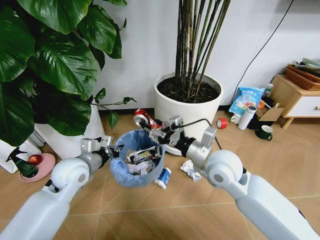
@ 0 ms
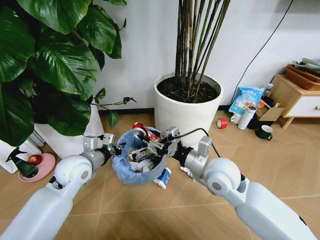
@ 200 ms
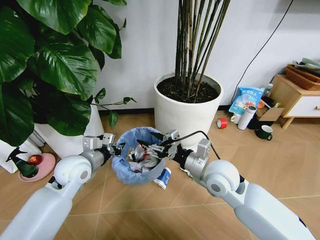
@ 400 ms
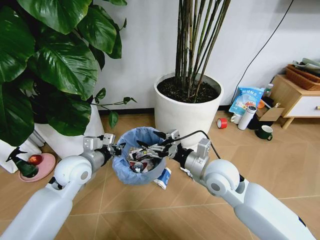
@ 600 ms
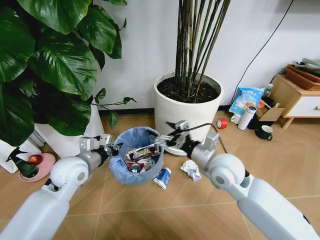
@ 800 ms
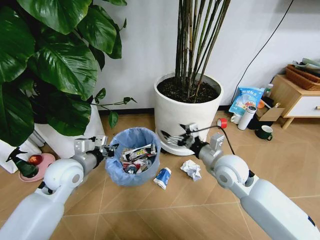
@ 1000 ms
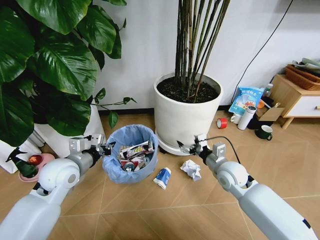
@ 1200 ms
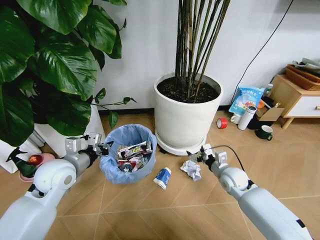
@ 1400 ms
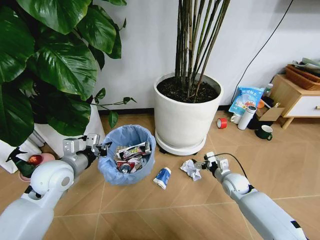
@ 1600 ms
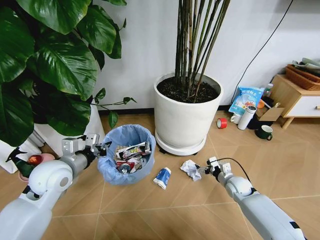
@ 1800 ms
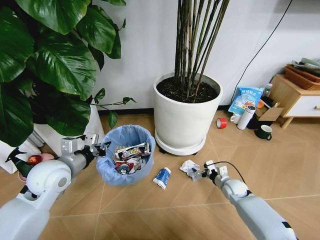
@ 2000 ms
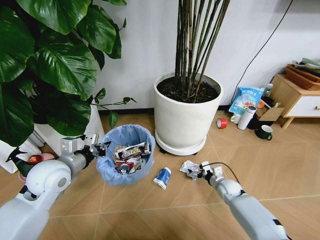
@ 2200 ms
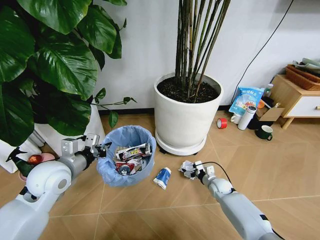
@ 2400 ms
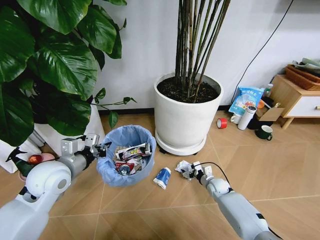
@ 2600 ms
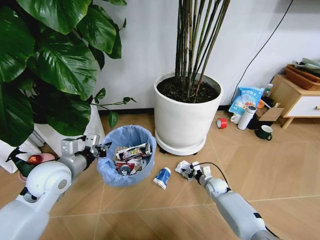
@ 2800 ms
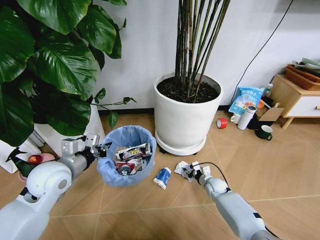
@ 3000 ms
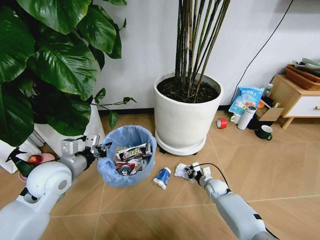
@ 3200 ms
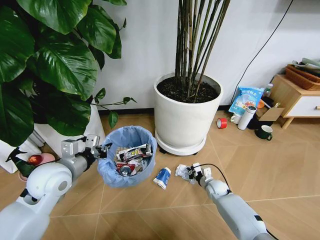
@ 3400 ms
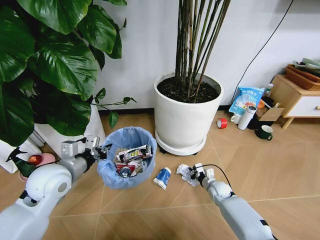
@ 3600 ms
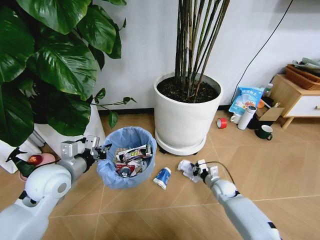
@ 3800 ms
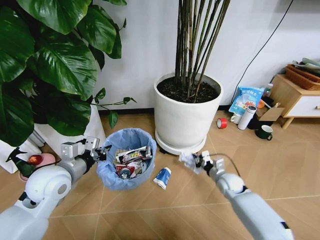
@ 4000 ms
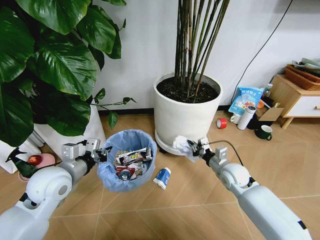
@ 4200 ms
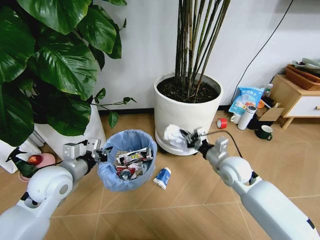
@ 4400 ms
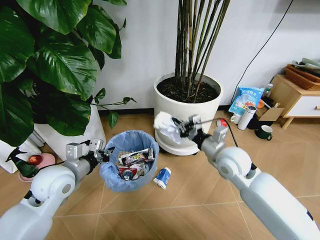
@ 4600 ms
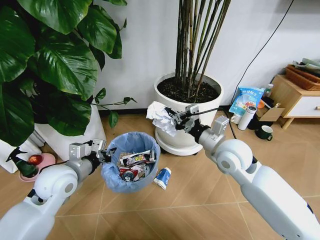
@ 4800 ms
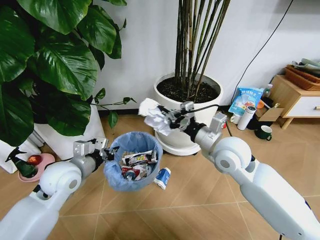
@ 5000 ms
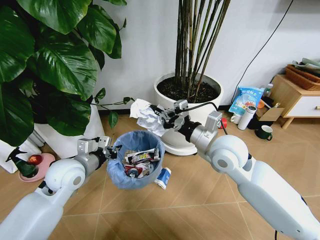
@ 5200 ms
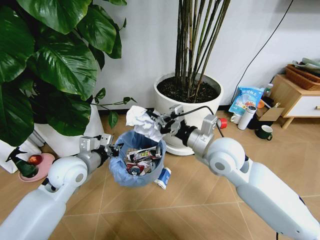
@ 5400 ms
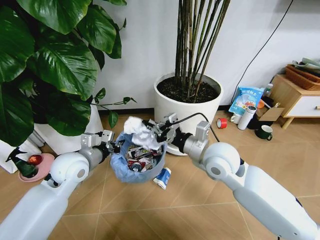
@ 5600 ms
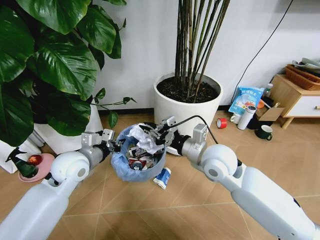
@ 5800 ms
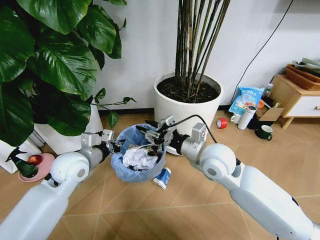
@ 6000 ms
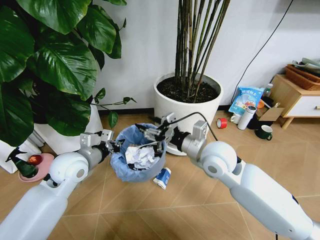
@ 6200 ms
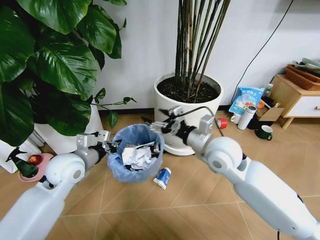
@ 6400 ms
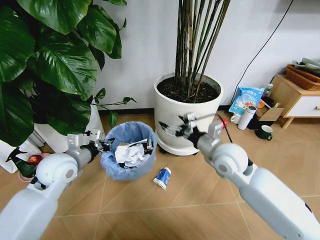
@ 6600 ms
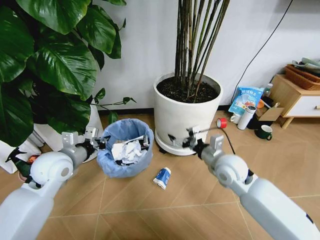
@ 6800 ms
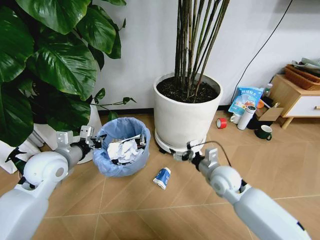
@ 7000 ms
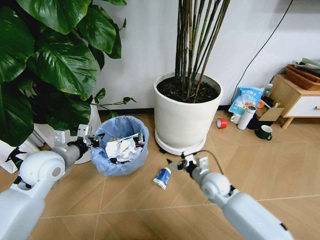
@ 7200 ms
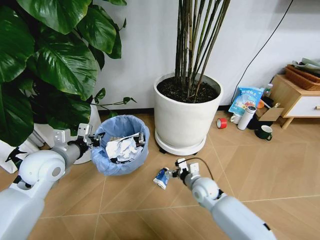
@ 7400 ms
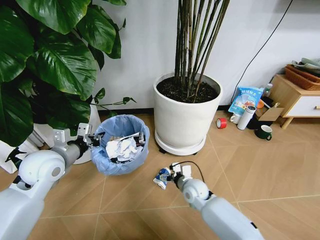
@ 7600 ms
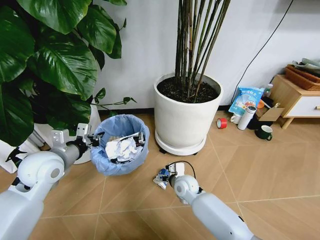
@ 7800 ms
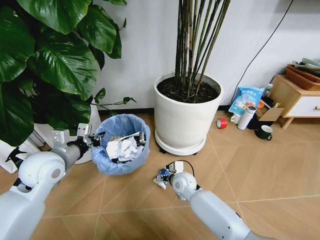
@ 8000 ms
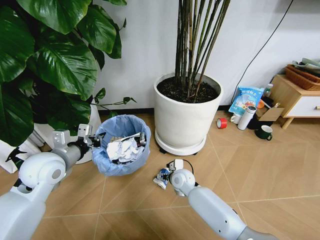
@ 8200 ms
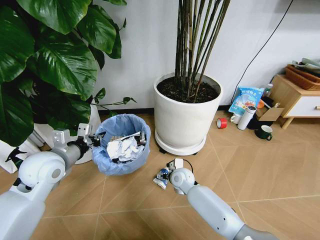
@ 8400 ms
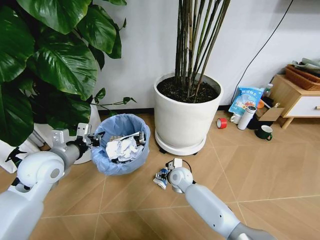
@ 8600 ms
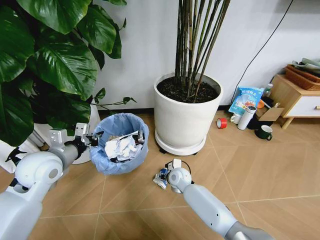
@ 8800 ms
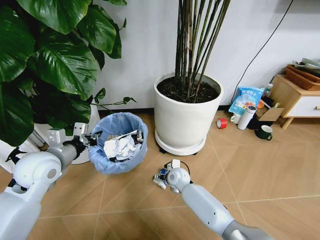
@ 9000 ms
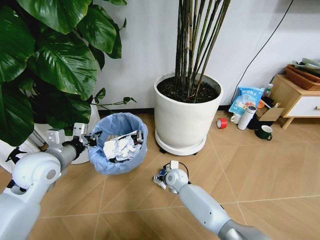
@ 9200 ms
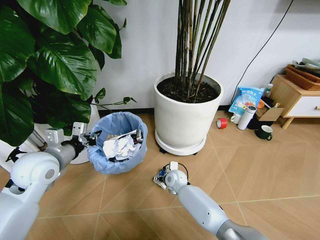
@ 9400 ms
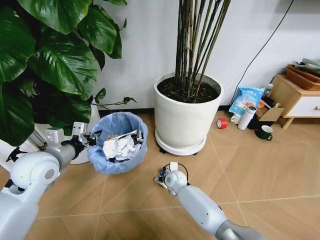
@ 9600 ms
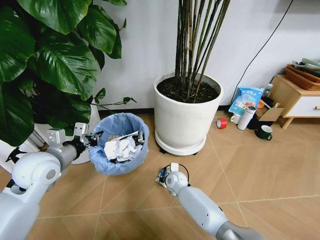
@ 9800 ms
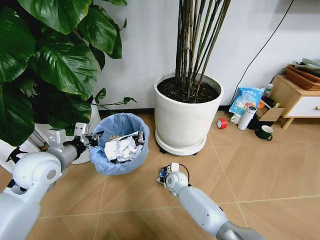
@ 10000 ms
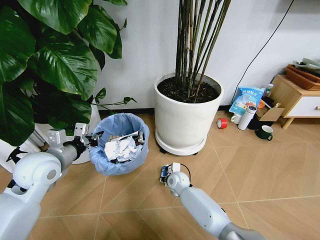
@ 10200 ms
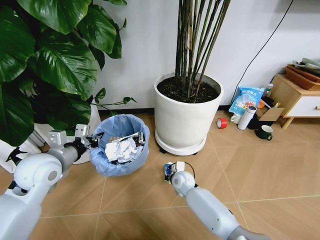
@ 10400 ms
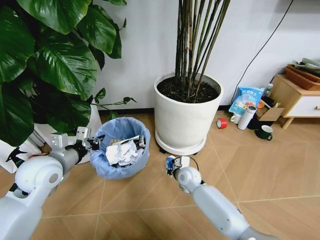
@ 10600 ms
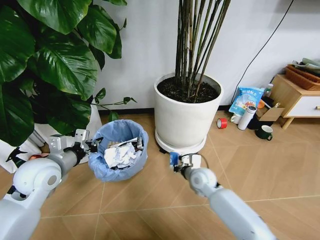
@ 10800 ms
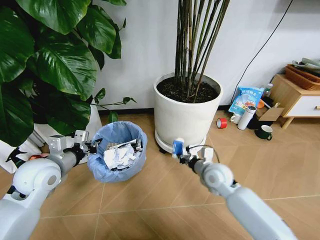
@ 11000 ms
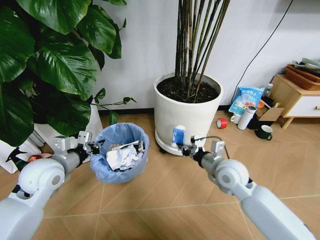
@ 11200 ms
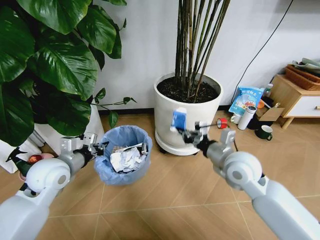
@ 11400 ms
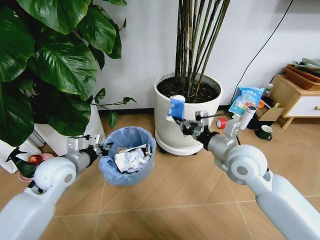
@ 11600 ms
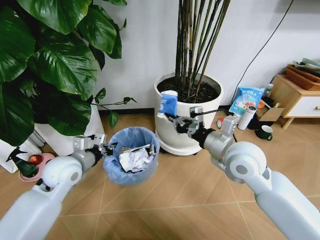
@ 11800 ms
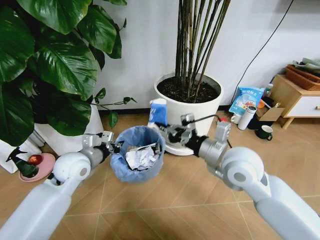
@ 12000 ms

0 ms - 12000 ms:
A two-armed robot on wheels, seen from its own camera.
Task of the whole recording: Pick up the trash bin and place the garbage on the floor into it.
0 ms - 1600 ms: The right gripper moves downward and to the right, some 30 cm, and opens up.
1600 ms - 3000 ms: The right gripper moves downward, approximately 10 cm, and closes its fingers.
3000 ms - 4400 ms: The right gripper shifts roughly 25 cm upward, and closes up.
4400 ms - 6000 ms: The right gripper moves upward and to the left, about 15 cm, and opens, while the left gripper ends up approximately 5 cm from where it was.
6000 ms - 7600 ms: The left gripper travels to the left by roughly 5 cm, while the right gripper heads downward, covering some 25 cm, and opens its fingers.
7600 ms - 9000 ms: The right gripper shifts approximately 5 cm forward.
9000 ms - 10400 ms: The right gripper closes up.
10400 ms - 12000 ms: The left gripper shifts roughly 5 cm to the right; the right gripper travels upward by approximately 30 cm.

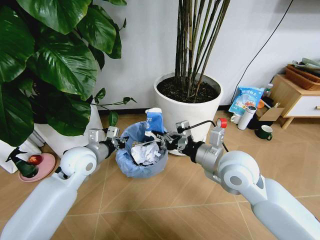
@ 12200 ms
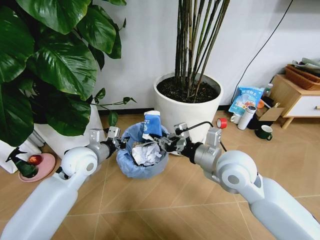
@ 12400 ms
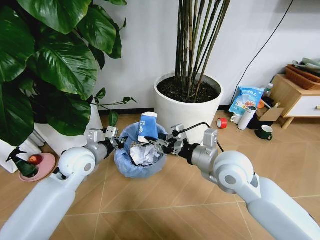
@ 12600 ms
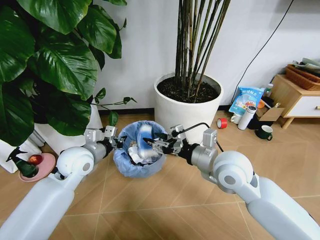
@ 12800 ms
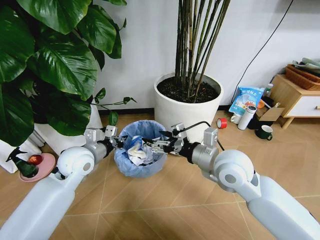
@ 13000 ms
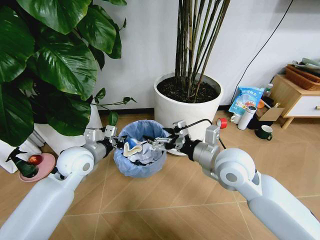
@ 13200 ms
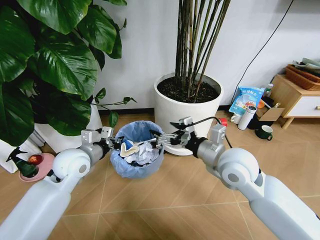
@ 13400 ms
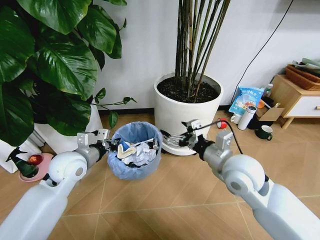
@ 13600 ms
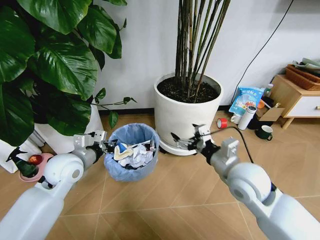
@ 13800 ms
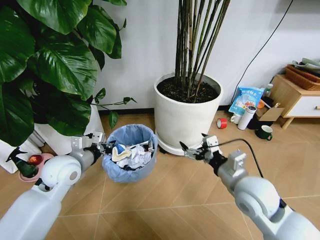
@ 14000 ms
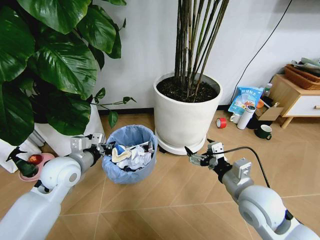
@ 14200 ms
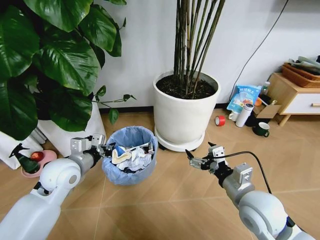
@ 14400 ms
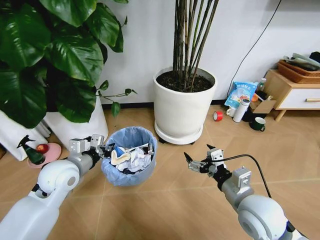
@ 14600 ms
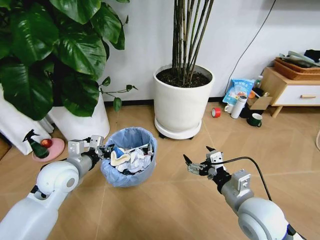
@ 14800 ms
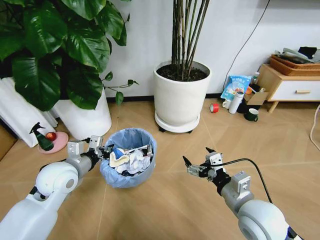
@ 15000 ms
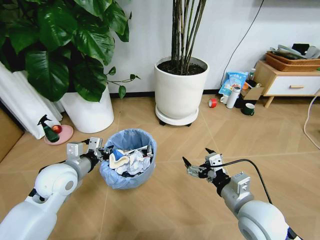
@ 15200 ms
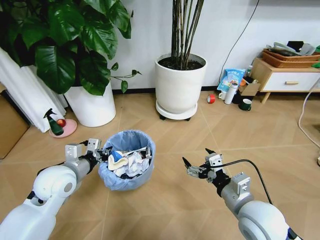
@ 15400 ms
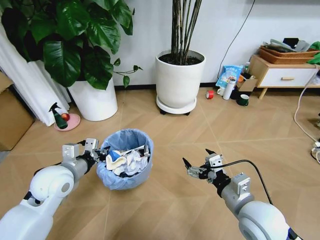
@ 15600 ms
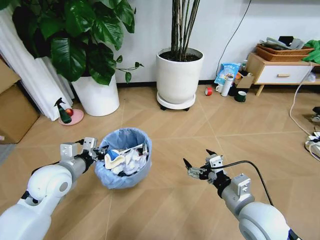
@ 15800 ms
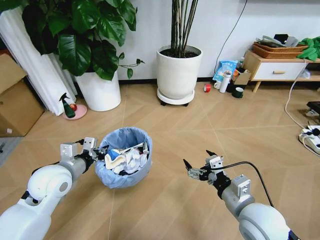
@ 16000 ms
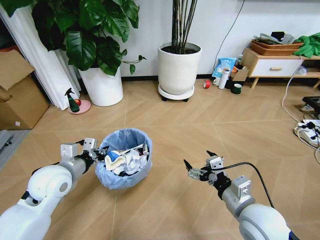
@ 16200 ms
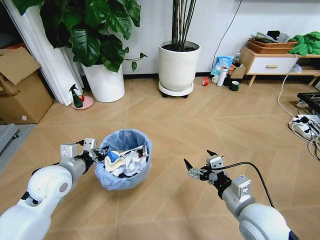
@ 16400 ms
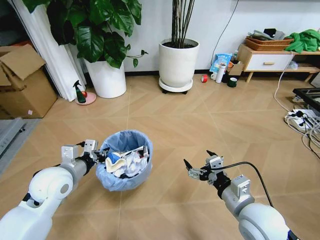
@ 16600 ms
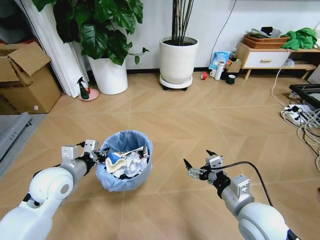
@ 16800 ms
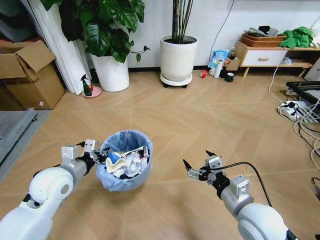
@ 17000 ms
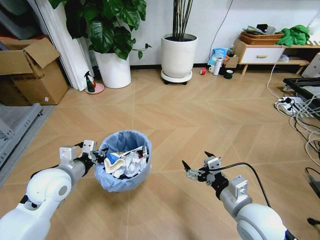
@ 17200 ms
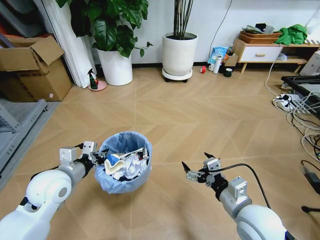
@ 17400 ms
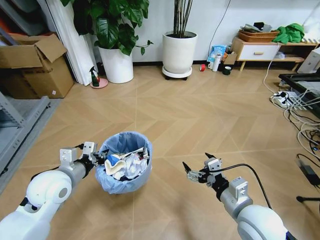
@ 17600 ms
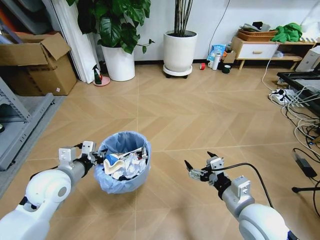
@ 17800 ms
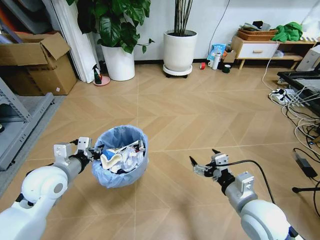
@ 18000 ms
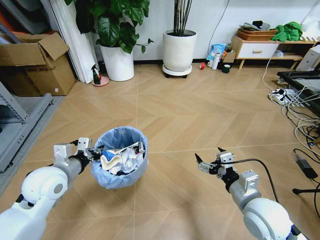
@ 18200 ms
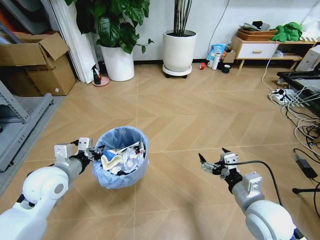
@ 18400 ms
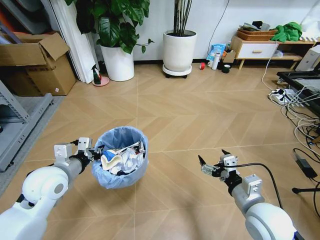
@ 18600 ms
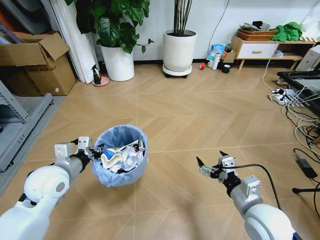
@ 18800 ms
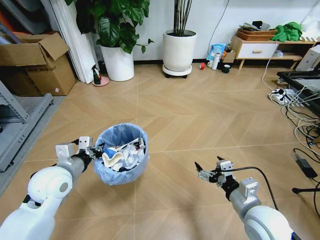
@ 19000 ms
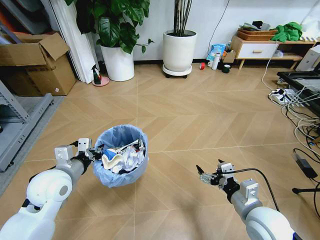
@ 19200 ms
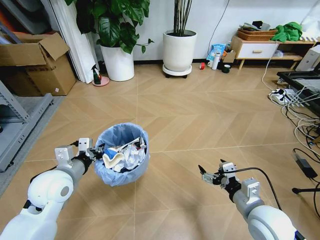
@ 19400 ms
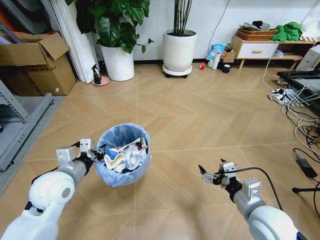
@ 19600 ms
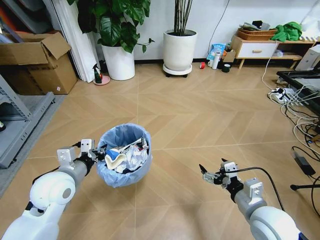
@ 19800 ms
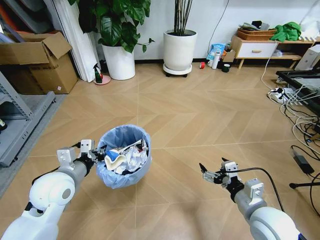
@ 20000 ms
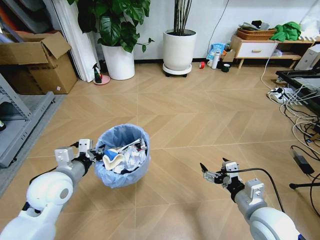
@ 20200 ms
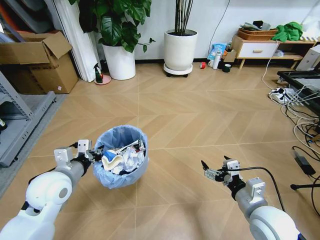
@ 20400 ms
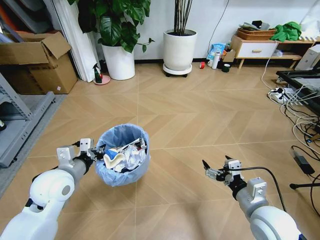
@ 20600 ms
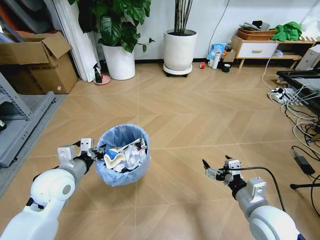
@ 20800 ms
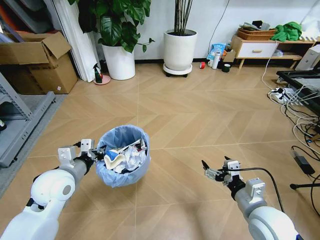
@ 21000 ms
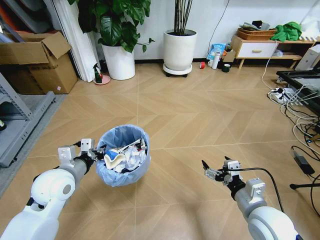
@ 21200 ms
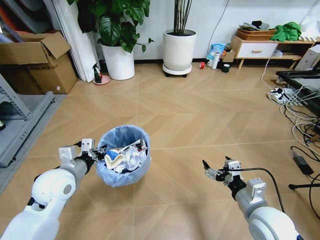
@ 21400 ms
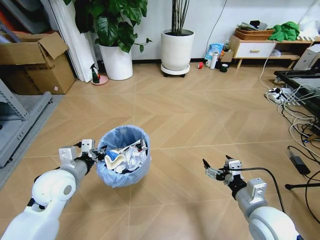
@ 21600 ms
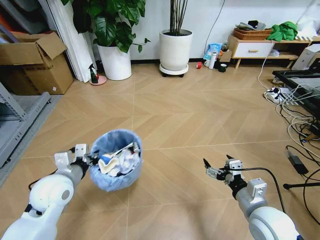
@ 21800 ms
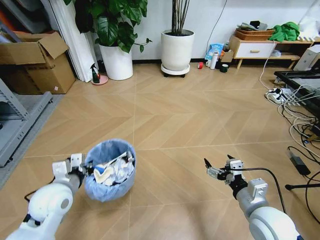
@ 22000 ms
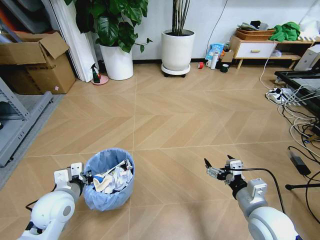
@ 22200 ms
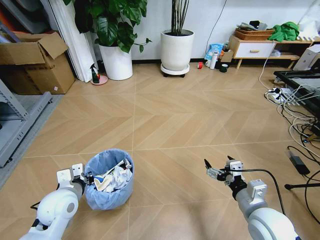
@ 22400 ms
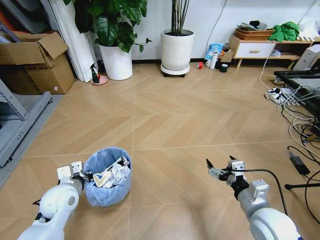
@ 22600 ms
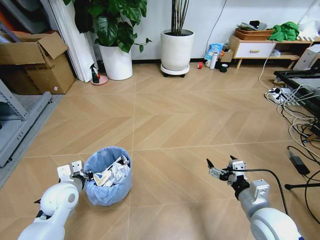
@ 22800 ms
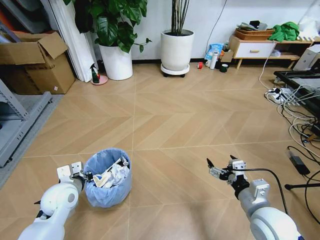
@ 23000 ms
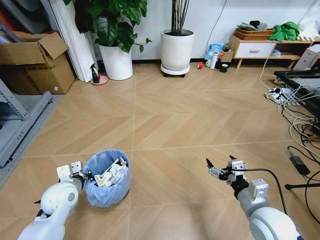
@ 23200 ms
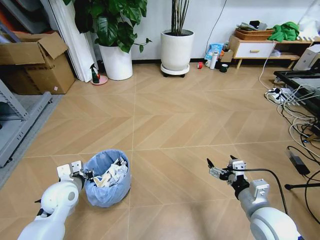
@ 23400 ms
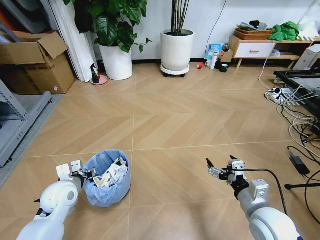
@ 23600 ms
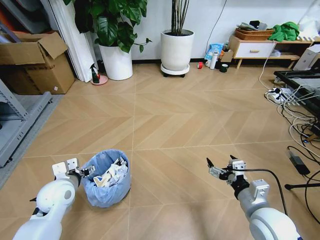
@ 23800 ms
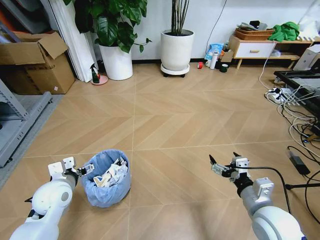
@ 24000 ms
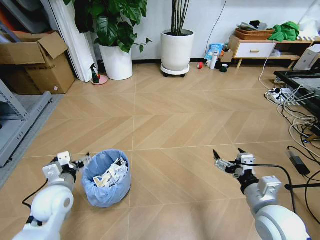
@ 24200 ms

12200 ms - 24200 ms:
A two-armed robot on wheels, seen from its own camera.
Task of the whole recording: Pick up the trash bin and place the garbage on the floor into it.
12200 ms - 13800 ms: The right gripper changes place by approximately 5 cm, and opens.
13800 ms - 15200 ms: The right gripper moves backward, about 10 cm.
18200 ms - 21200 ms: There are only small adjustments of the grippers.
21200 ms - 22600 ms: The left gripper is displaced downward by about 5 cm.
22600 ms - 24200 ms: The left gripper opens up.
